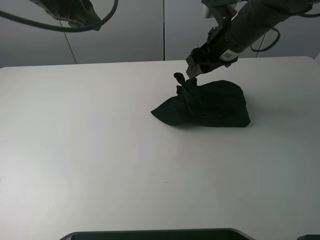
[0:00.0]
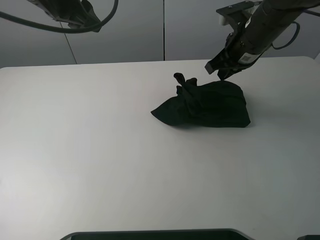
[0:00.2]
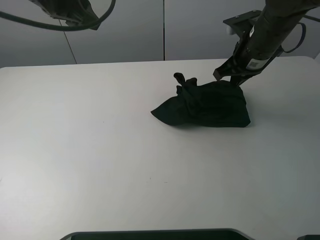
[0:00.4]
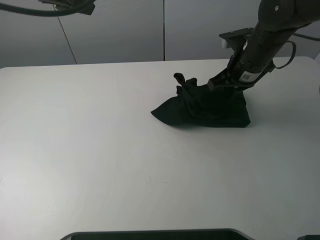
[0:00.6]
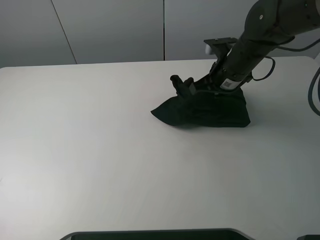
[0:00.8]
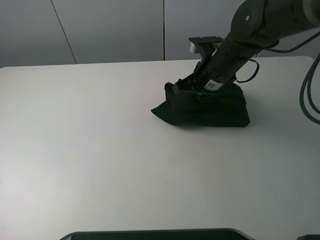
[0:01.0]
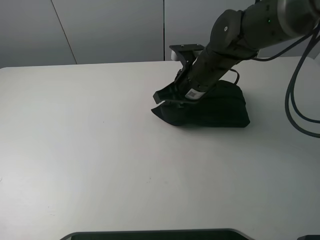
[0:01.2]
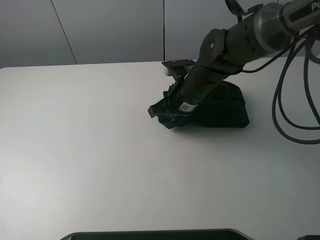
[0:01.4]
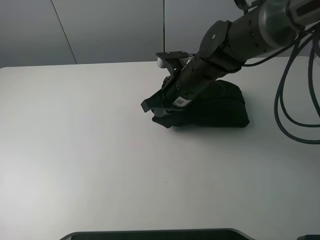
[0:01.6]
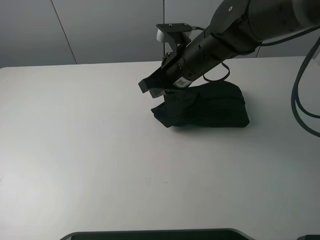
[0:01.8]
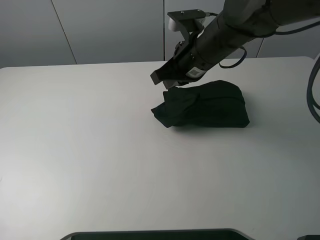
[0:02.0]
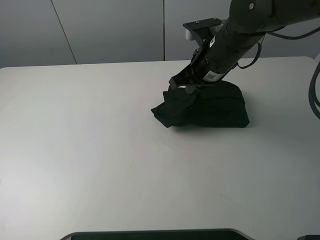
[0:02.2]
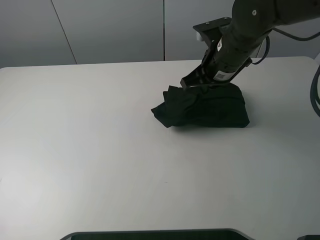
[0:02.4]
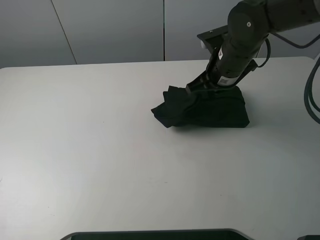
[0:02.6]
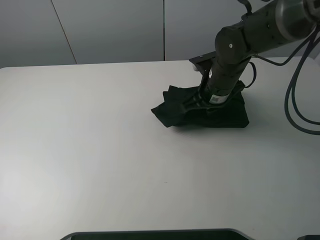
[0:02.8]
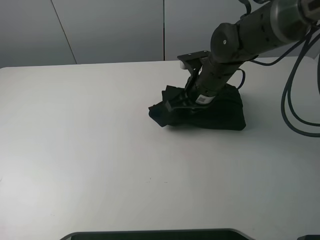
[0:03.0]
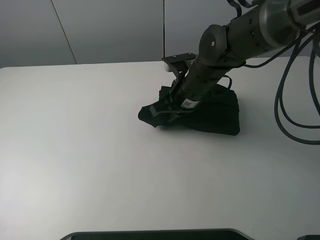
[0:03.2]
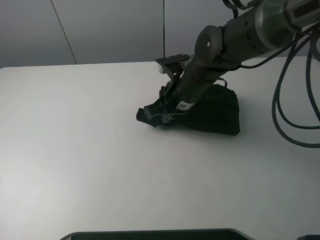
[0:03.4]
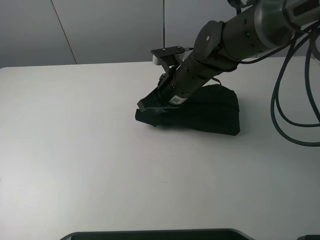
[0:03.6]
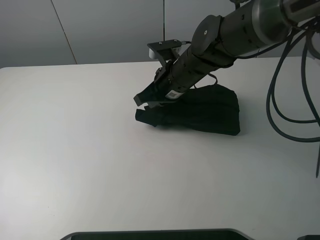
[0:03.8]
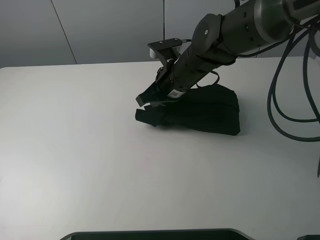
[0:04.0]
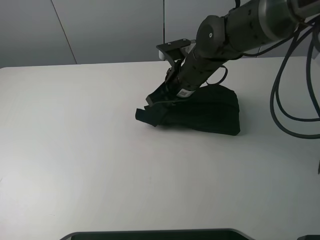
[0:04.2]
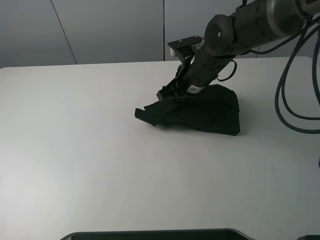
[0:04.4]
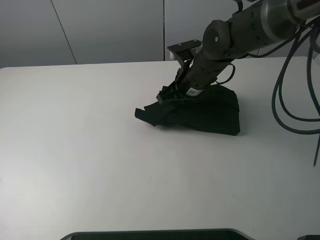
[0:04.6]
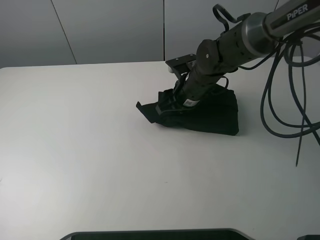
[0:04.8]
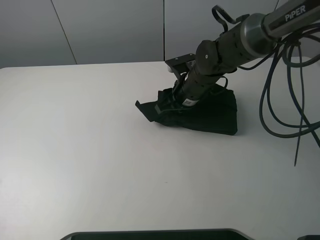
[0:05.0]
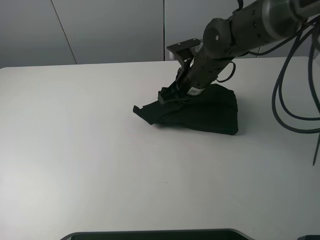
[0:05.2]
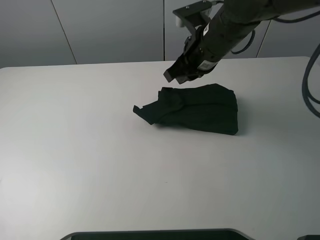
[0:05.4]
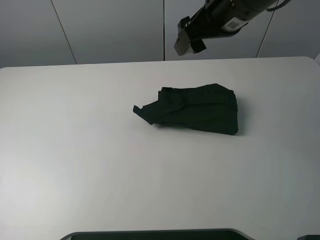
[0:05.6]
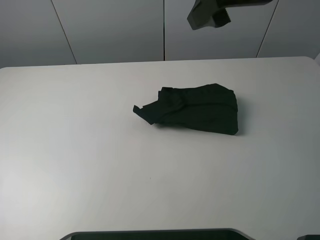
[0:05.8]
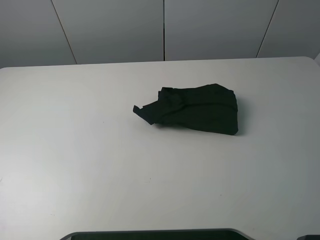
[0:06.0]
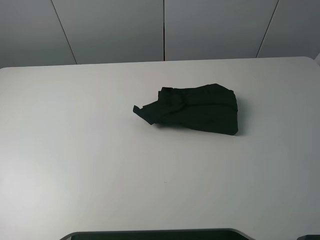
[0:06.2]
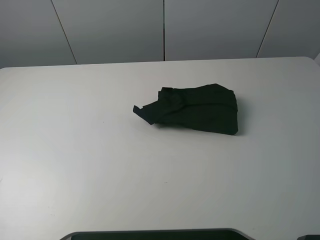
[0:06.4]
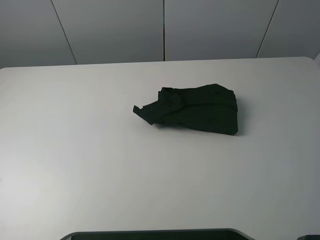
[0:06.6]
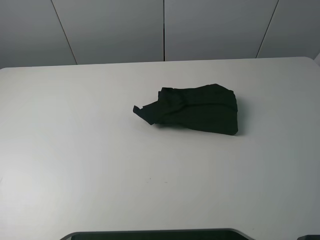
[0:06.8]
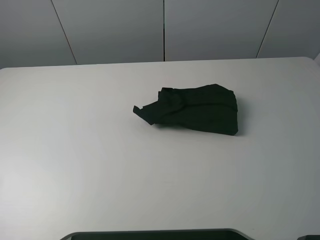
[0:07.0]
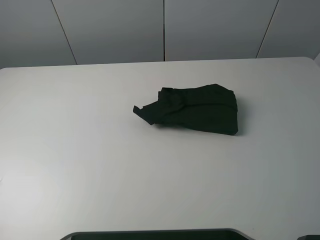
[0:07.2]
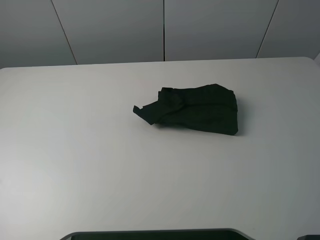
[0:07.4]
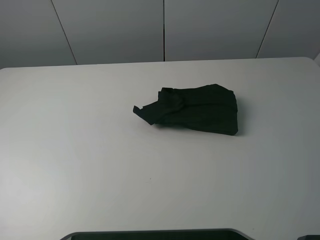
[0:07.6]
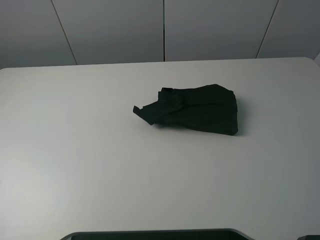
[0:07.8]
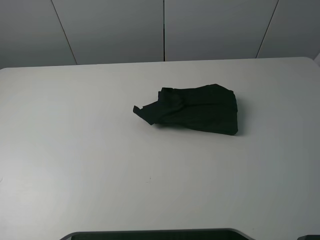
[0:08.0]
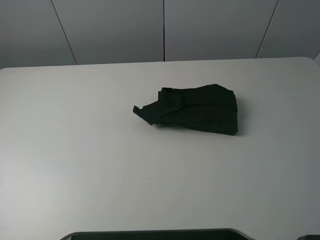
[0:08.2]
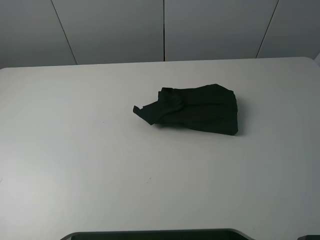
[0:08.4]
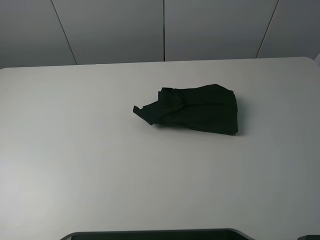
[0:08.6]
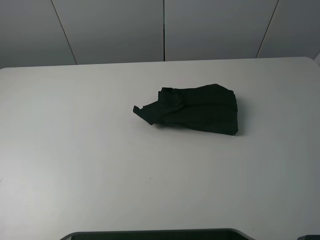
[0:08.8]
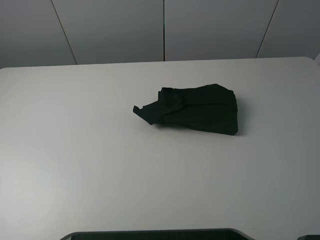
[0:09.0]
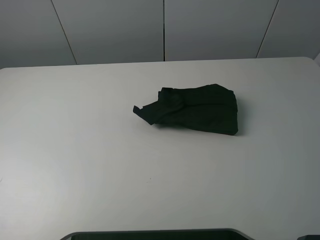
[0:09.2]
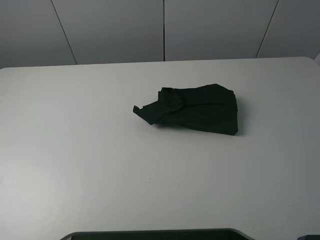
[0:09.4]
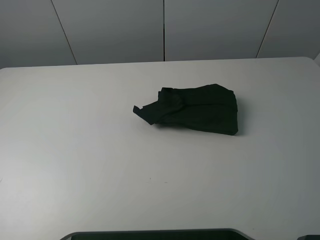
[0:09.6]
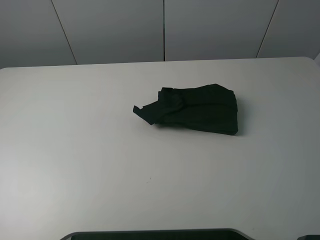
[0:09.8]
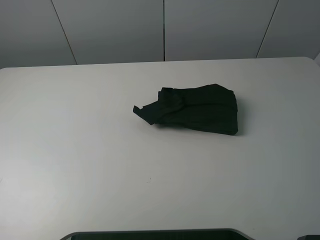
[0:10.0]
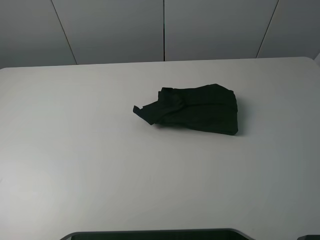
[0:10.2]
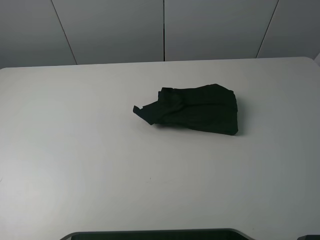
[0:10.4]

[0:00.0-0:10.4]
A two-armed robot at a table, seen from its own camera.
Task of the whole recording: fold the clothes on the table.
Step, 0:00.0 to 0:05.2: Fold the black T-shirt from right to left with right gripper.
0:00.0 to 0:01.4: The left gripper moves upward and backward, some 20 cm, while the right gripper goes approximately 15 cm downward and to the left, and closes up.
0:01.4 to 0:03.0: The right gripper moves about 10 cm upward and comes back.
0:03.0 to 0:04.4: The grippers stay close to where they were, moving slightly.
0:04.4 to 0:06.0: The right gripper shifts about 30 cm upward, backward and to the right, and opens up; the left gripper travels backward and to the left by some 15 cm.
0:09.0 to 0:10.4: Neither gripper changes place.
